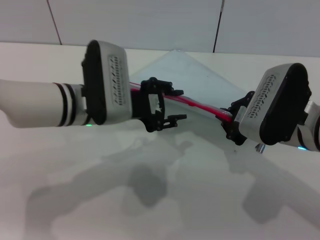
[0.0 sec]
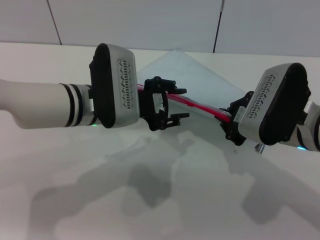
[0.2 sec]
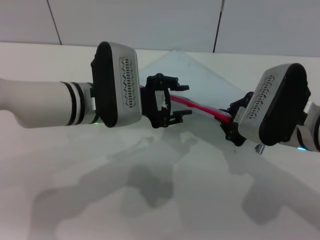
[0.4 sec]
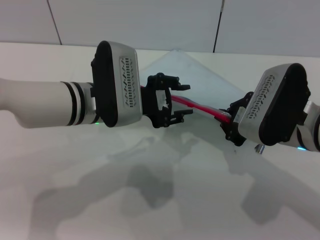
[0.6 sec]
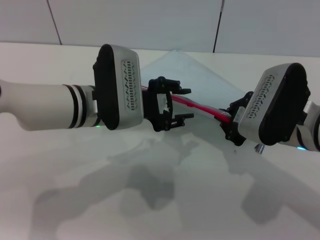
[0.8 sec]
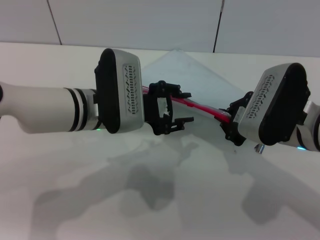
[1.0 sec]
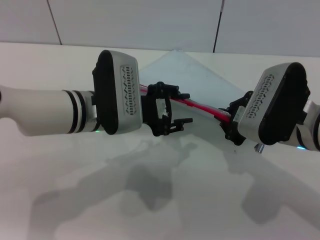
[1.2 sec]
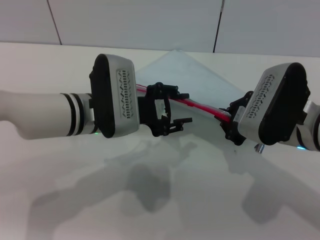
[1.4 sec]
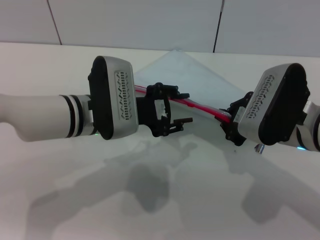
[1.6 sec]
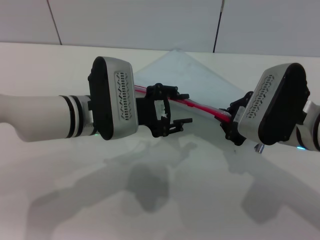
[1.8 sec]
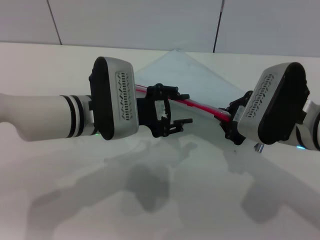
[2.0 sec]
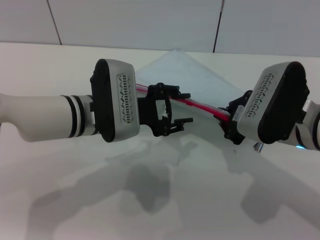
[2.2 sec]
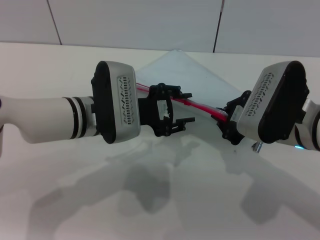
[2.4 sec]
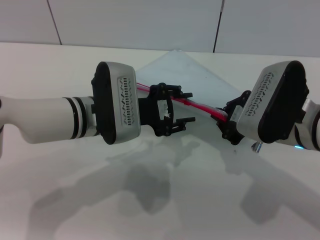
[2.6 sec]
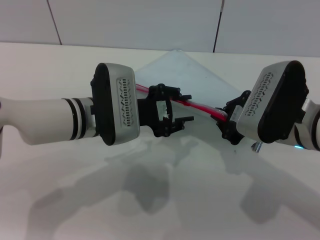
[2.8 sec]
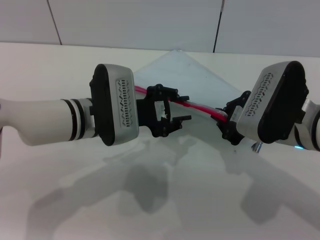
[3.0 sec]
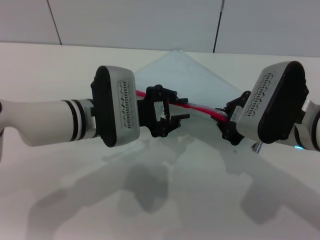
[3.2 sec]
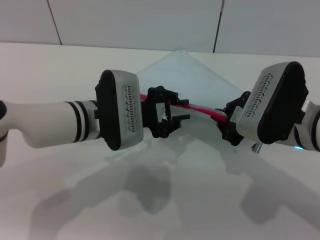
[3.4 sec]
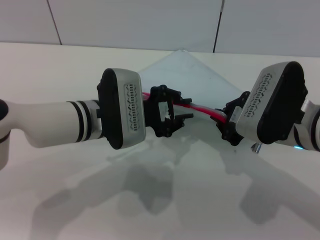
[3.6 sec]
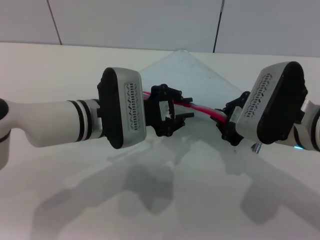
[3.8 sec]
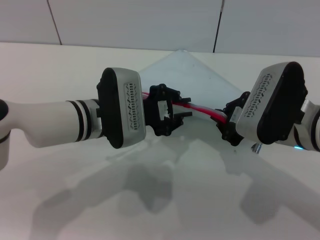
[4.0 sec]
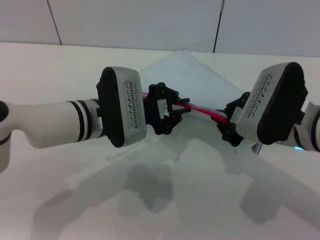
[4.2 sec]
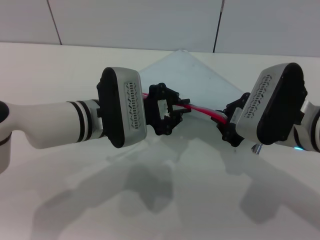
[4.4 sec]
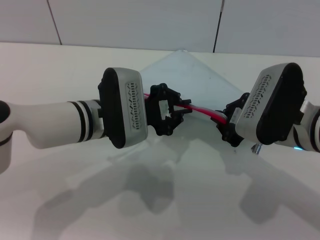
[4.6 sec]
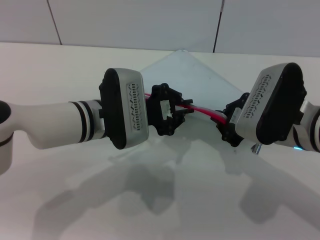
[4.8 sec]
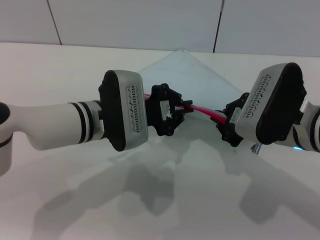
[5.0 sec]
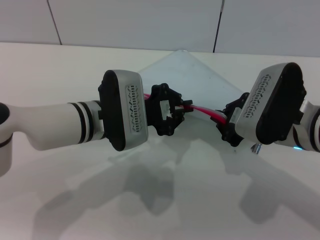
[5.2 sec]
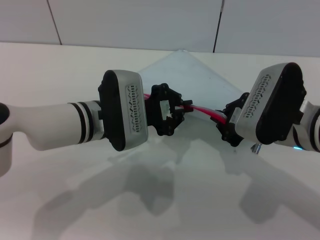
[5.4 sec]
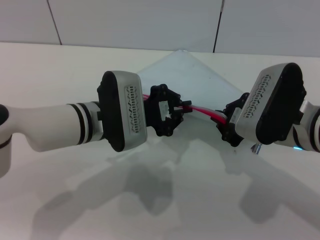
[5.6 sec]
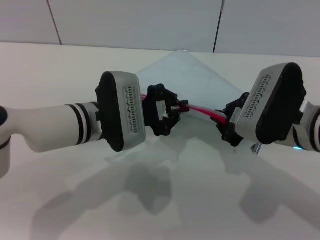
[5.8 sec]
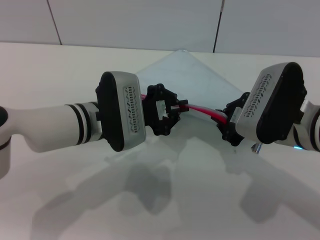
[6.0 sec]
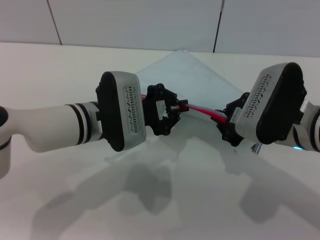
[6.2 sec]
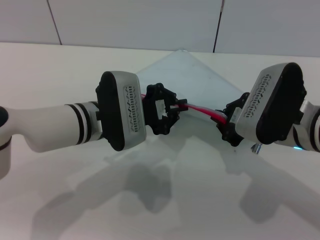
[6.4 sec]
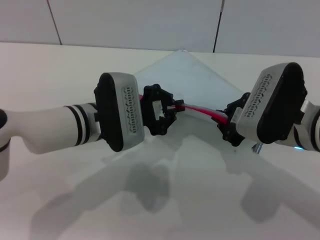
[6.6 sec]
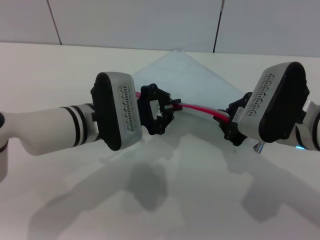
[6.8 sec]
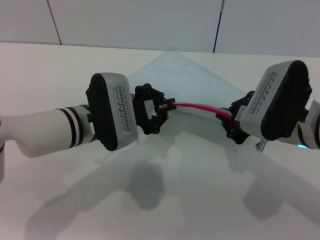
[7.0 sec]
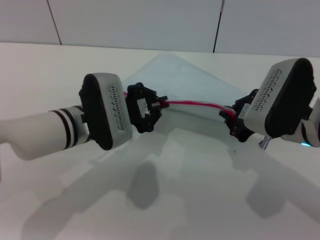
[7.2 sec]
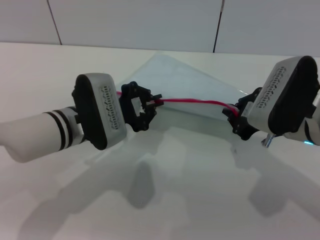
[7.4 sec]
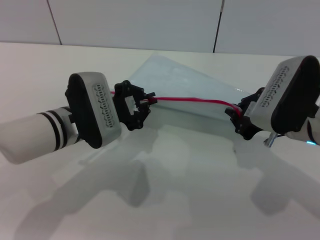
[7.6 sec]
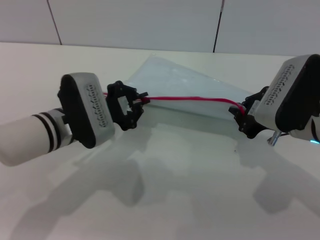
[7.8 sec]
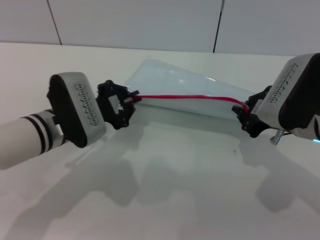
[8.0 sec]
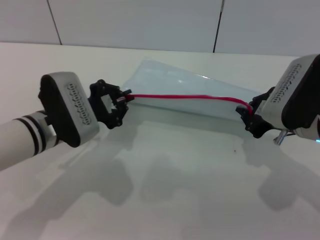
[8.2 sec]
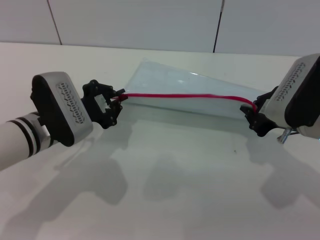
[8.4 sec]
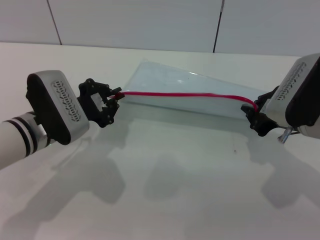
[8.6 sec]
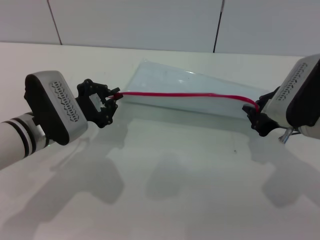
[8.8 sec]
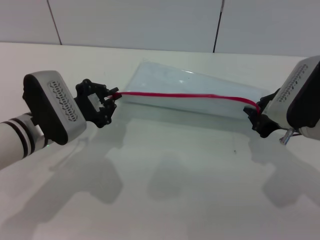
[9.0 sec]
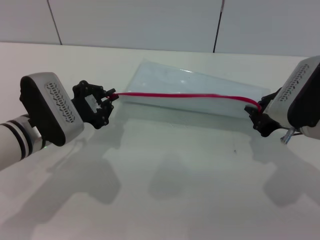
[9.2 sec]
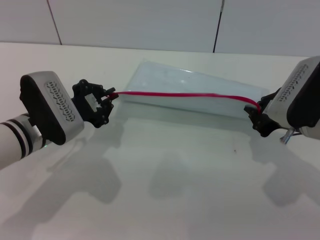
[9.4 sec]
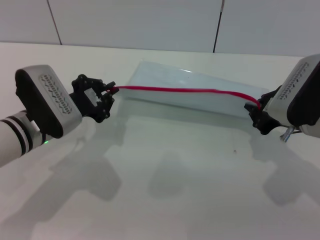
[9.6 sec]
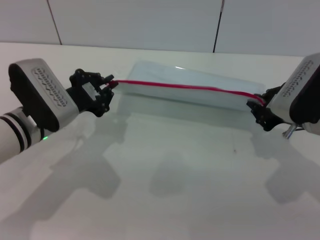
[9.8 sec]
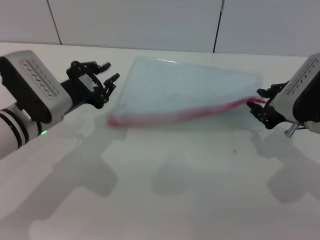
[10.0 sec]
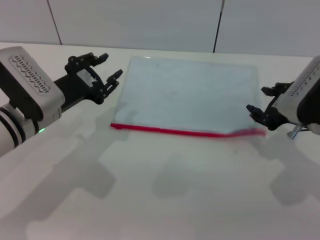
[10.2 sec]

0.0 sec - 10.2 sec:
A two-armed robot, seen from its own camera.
Step, 0.0 sec - 9.6 sec: Pulling up the zipper on the transparent plastic bag with the left gripper to close it.
0.0 sec - 1.4 sec: The grippers make only small movements.
1.4 sec - 3.0 sec: Both grippers stay put.
3.0 sec - 4.4 sec: The left gripper closes.
4.4 sec - 5.8 sec: Both grippers stay about where they are.
5.8 sec - 7.2 sec: The grippers move only a little.
7.2 sec - 8.8 sec: The left gripper shifts about 5 cm to the left.

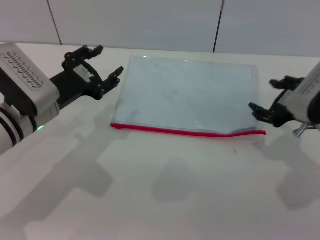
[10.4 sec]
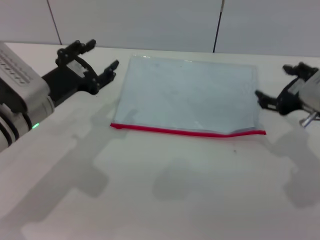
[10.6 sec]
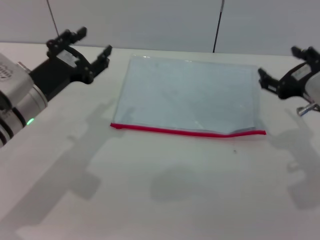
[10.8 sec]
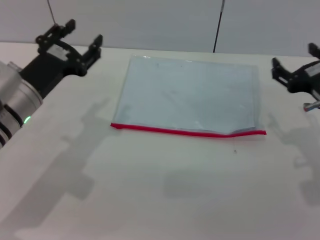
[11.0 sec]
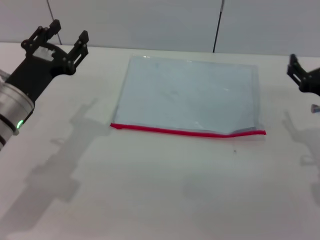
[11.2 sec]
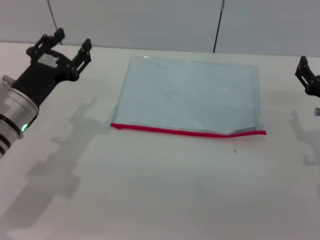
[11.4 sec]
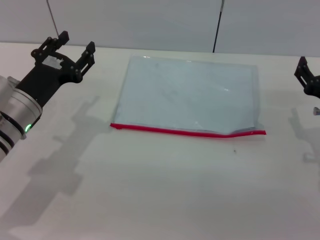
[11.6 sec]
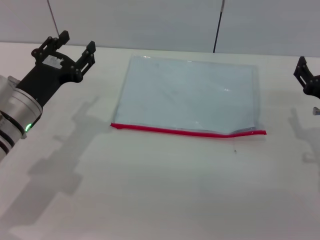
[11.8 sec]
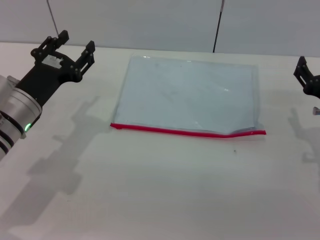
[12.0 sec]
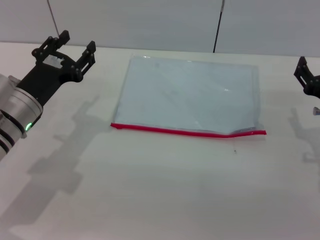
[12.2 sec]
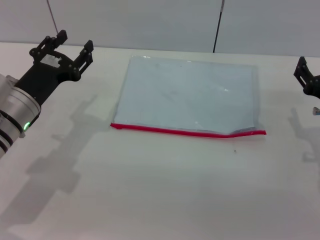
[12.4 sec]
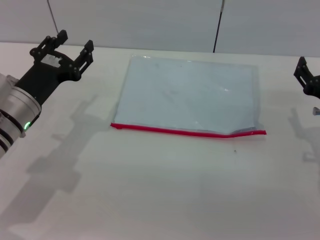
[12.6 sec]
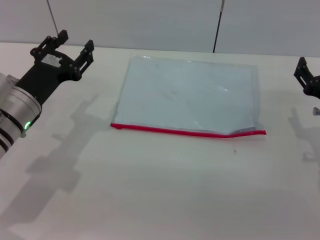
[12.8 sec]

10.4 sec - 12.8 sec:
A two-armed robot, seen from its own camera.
10.4 sec - 11.6 sec: The left gripper opens its fingers; the right gripper heads downward, covering about 5 cm.
11.6 sec - 12.8 sec: The two grippers keep their place.
